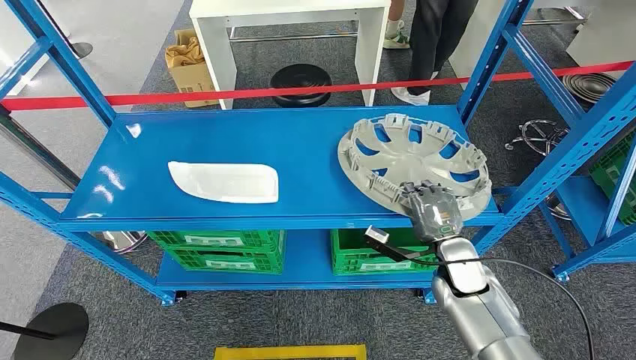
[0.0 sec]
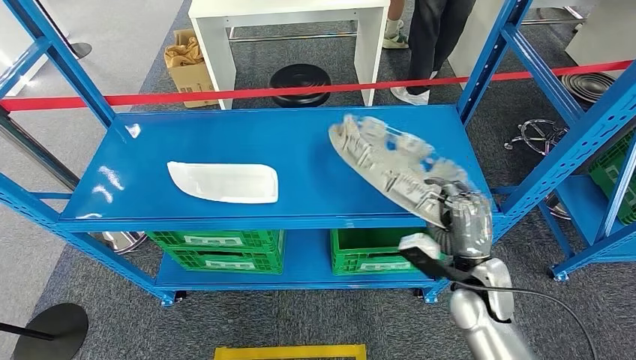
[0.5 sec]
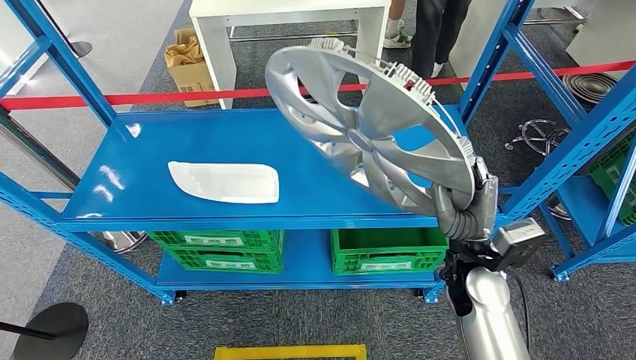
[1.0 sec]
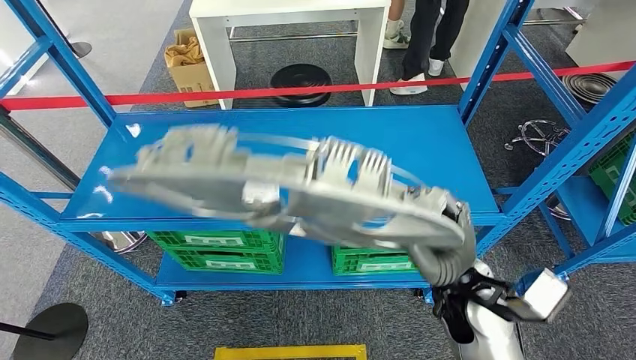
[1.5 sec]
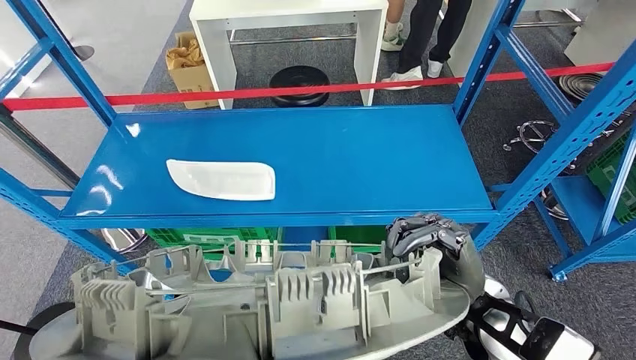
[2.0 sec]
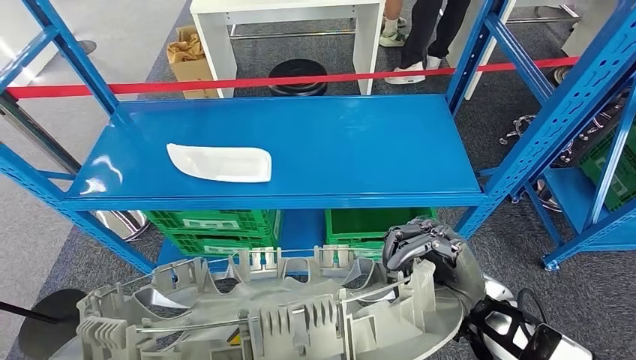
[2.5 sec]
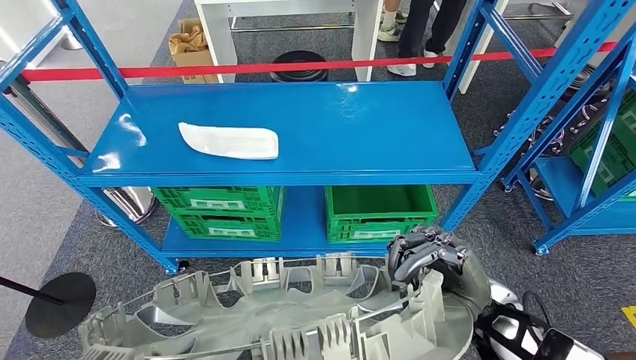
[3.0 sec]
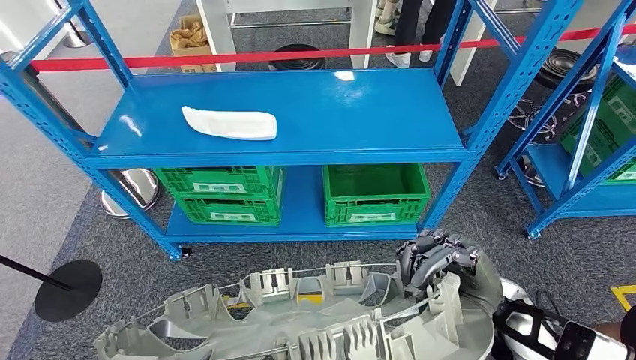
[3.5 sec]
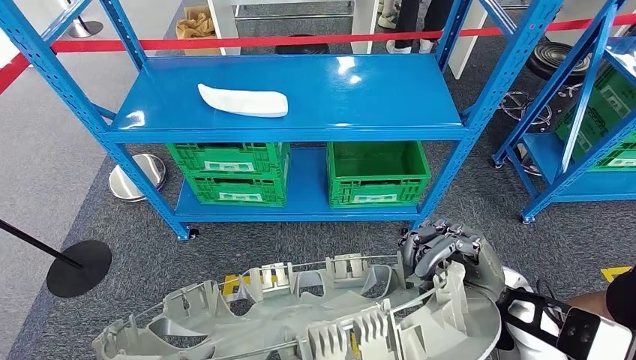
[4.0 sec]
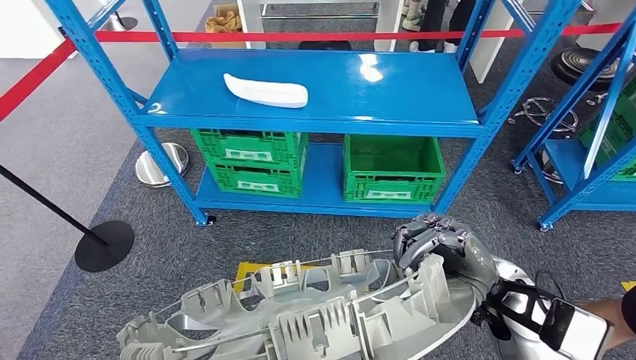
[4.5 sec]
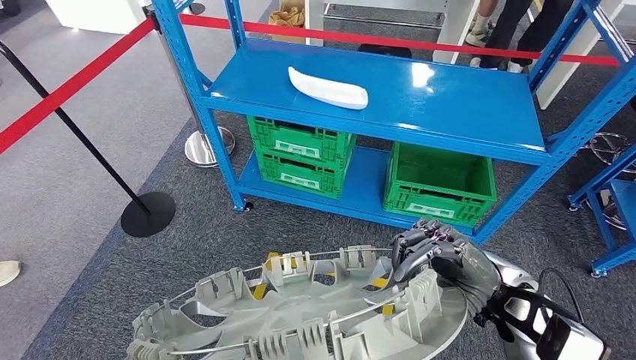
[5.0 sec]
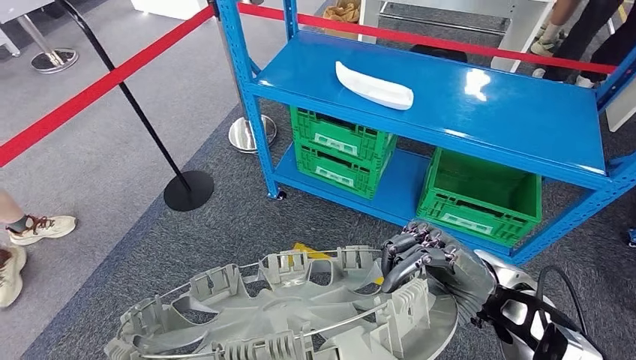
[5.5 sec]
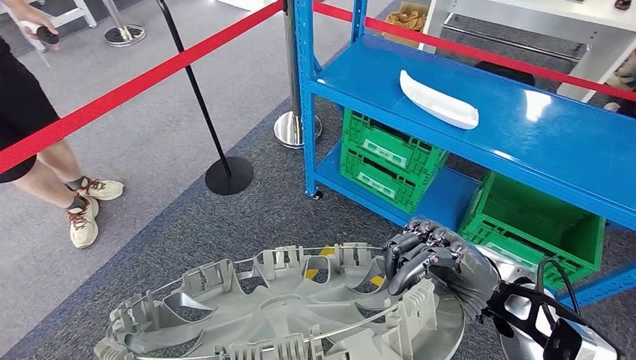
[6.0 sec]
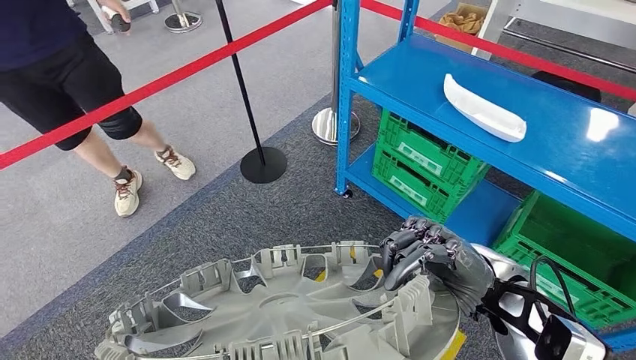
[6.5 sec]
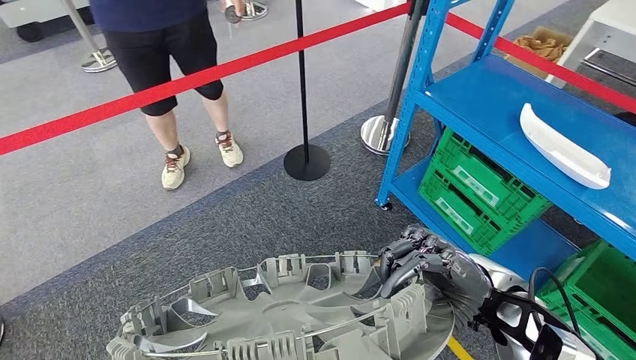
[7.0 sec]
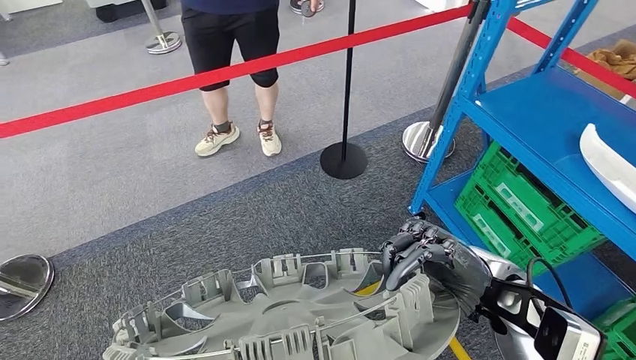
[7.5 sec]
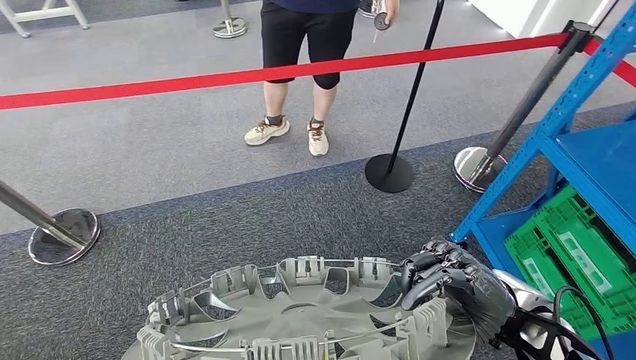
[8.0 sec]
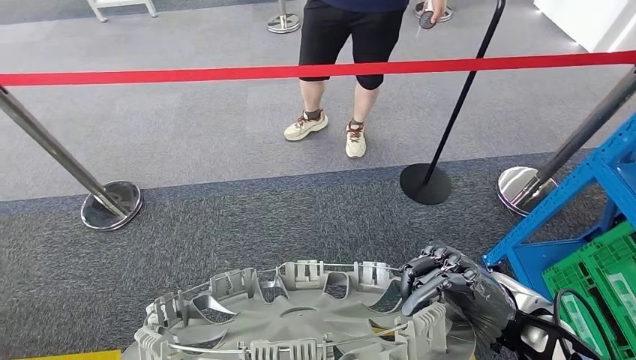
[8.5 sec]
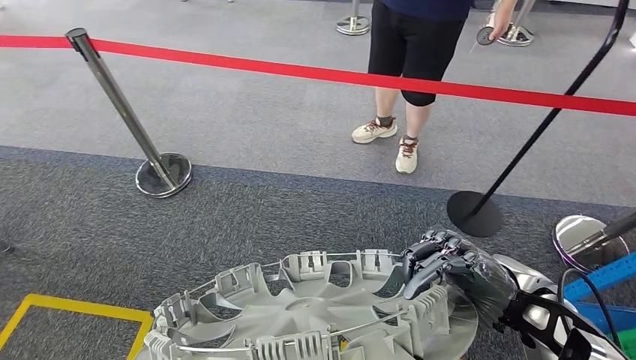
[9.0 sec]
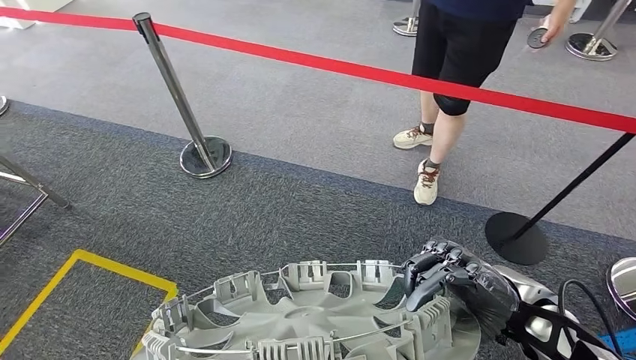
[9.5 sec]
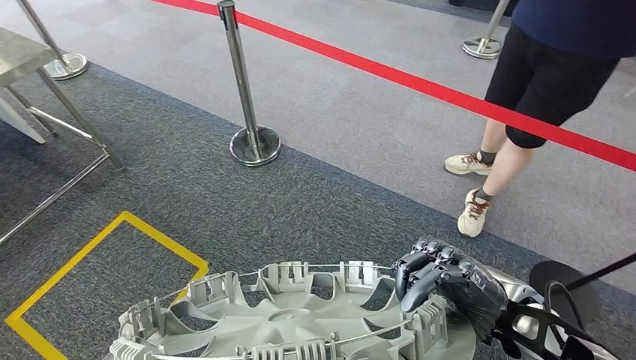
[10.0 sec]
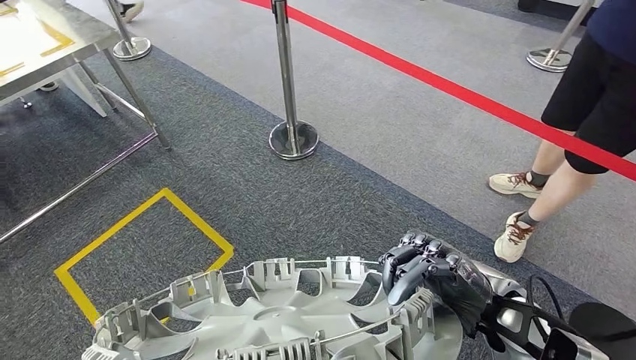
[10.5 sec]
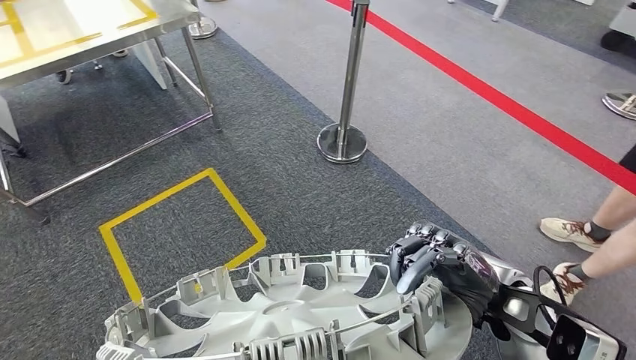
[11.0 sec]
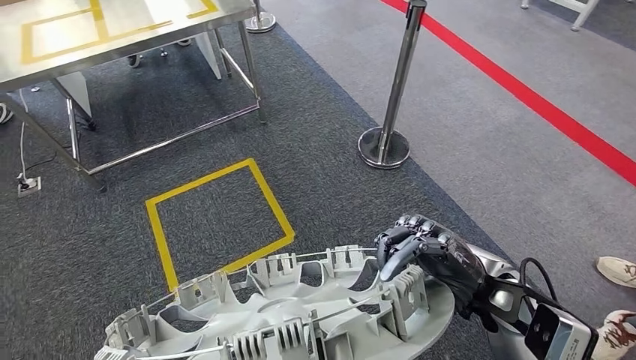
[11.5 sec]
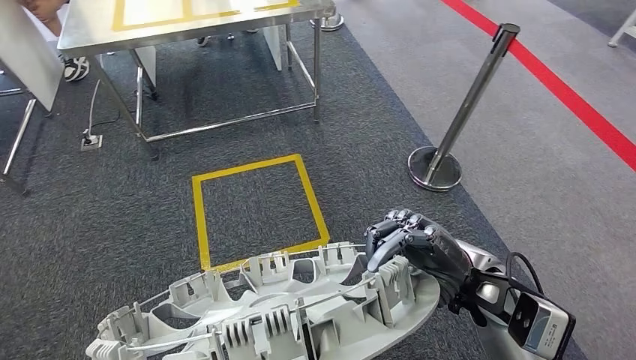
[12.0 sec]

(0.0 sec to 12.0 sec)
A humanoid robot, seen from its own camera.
Step, 0.0 sec - 1.5 sec: Pick up the small component from the shelf.

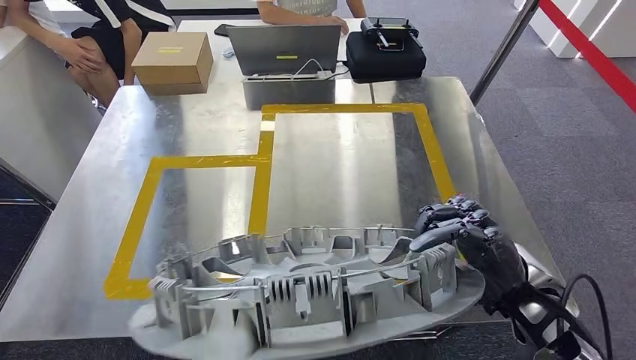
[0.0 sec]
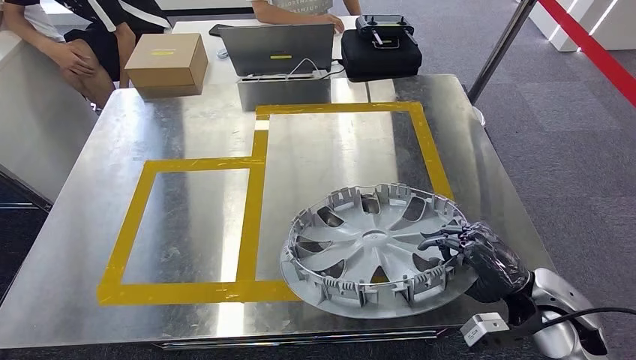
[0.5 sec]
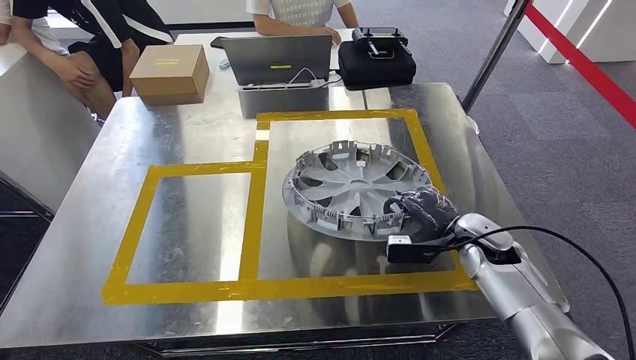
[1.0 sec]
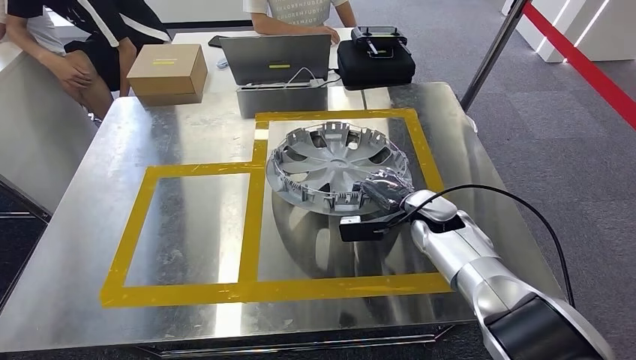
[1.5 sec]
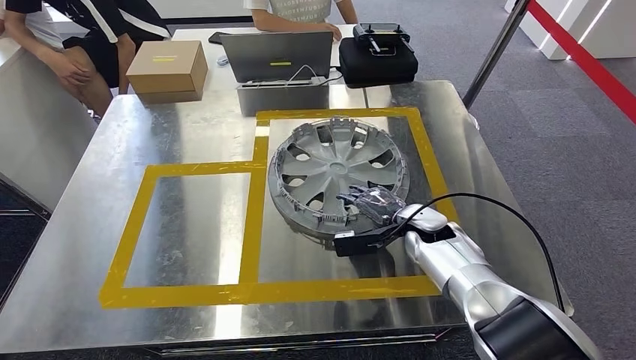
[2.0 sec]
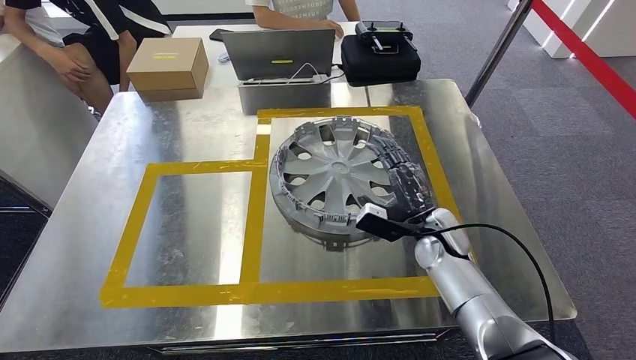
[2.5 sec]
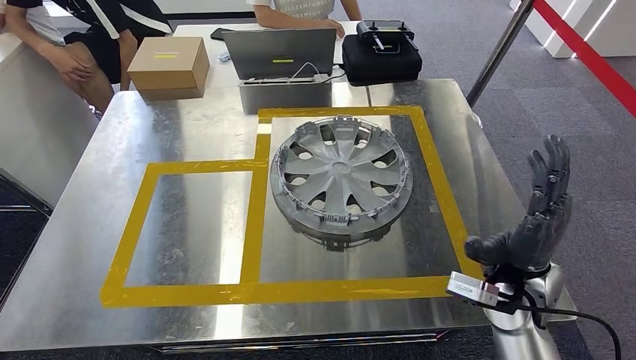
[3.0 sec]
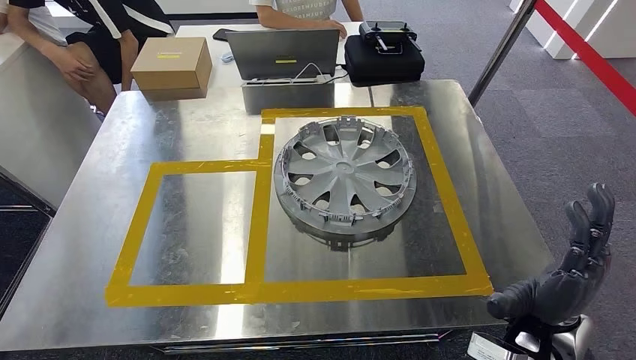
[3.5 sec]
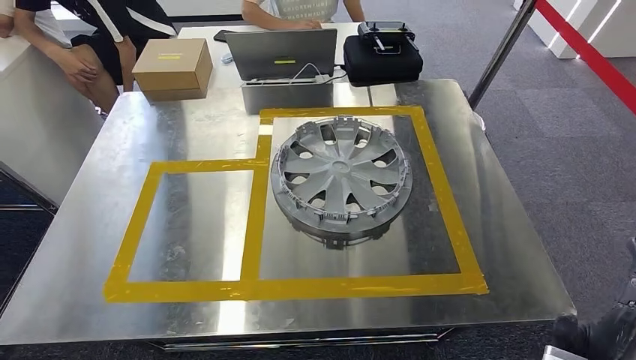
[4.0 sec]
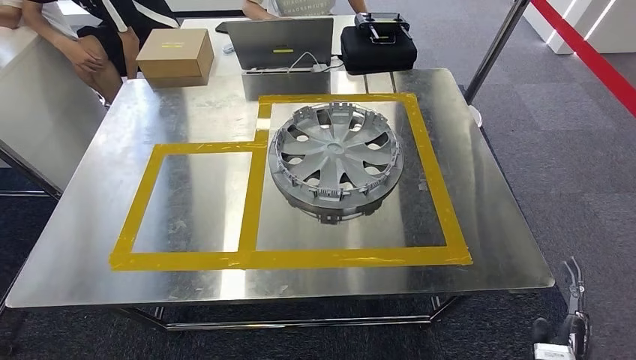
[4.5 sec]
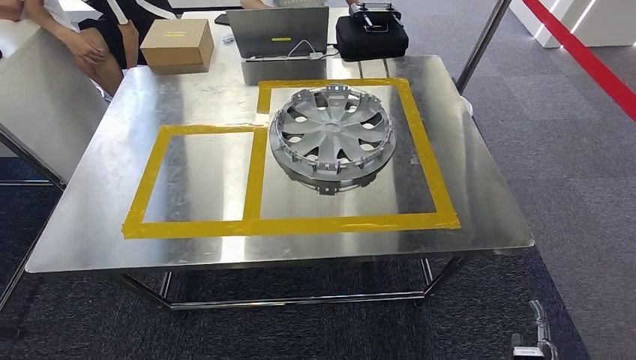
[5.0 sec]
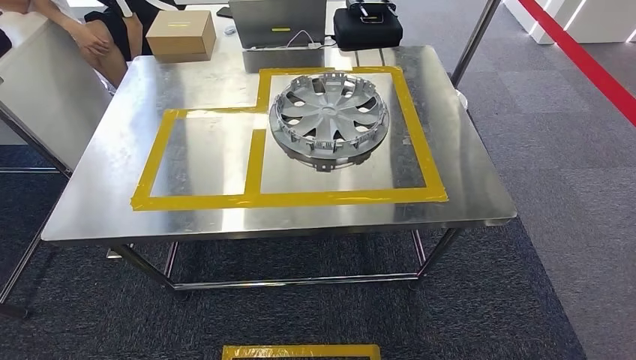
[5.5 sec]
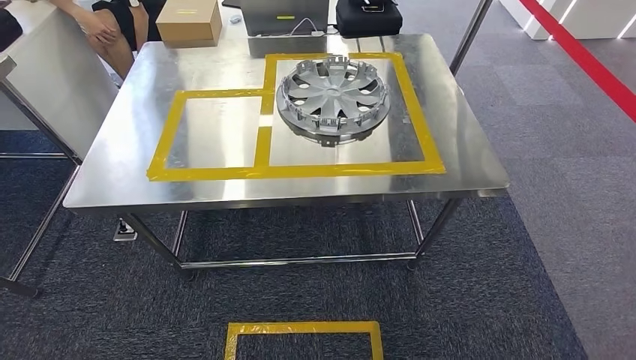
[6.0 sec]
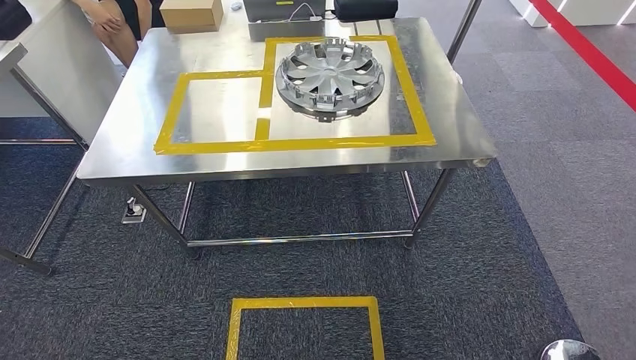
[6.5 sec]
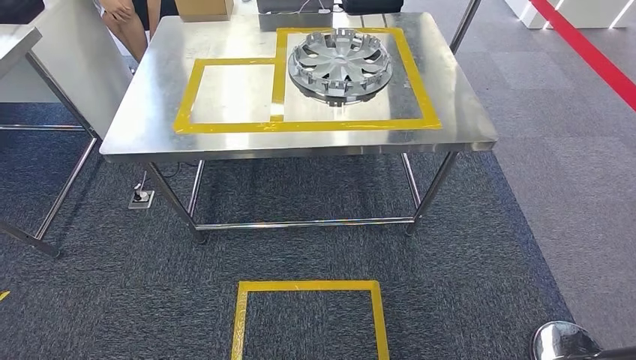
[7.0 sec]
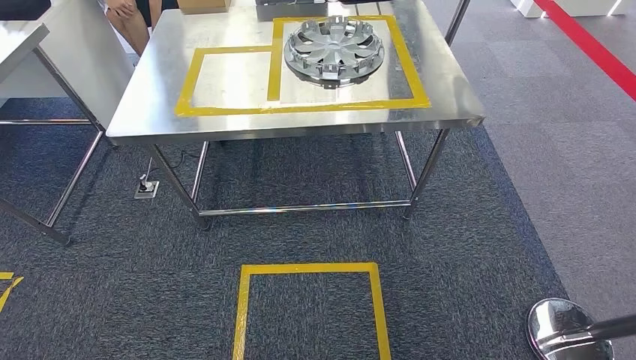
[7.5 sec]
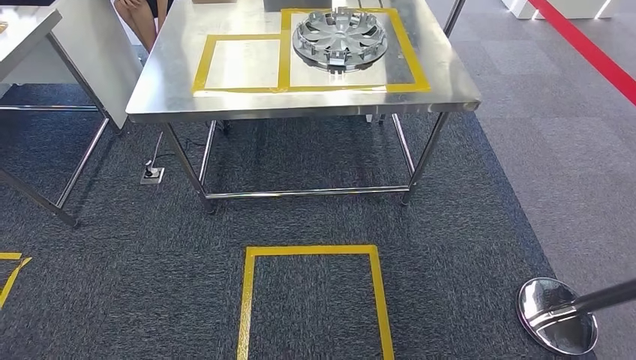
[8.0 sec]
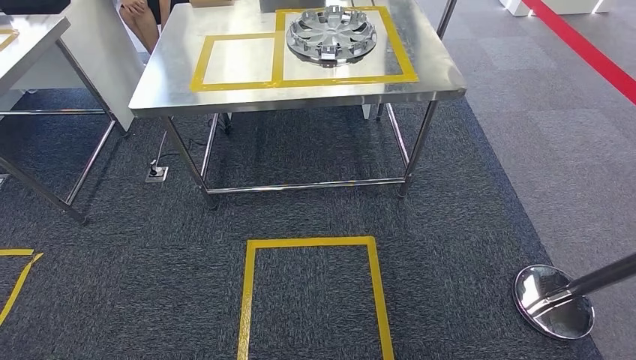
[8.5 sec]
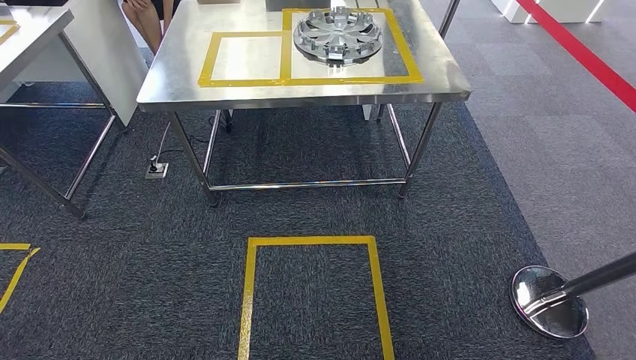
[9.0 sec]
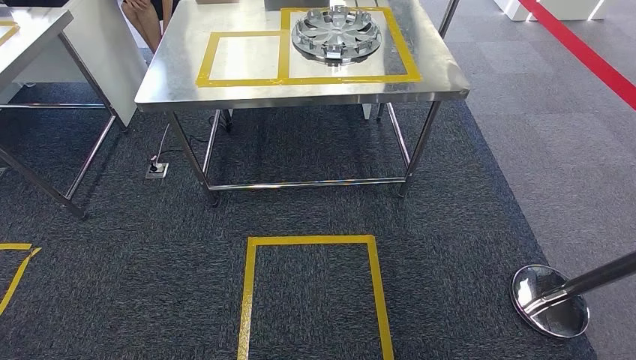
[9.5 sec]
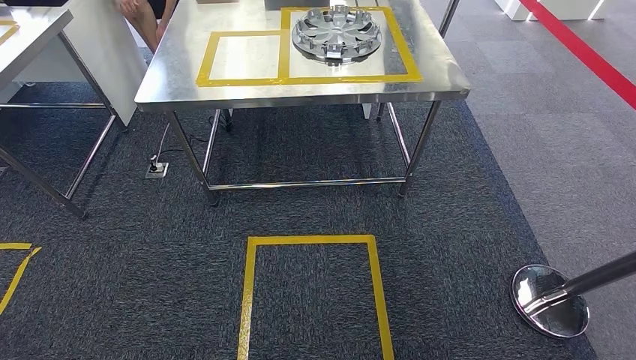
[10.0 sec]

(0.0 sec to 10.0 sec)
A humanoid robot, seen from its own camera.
Step, 0.5 sec - 3.0 sec: Insert the small component into the corresponding slot on the workbench.
Step, 3.5 sec - 10.0 sec: Move to the initial position of the workbench.
